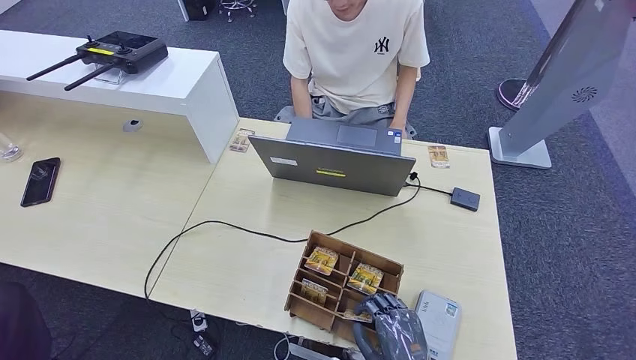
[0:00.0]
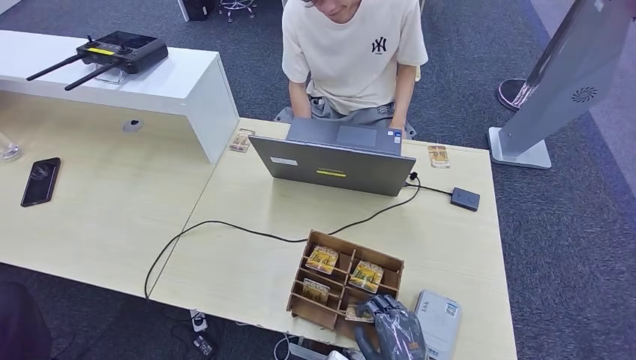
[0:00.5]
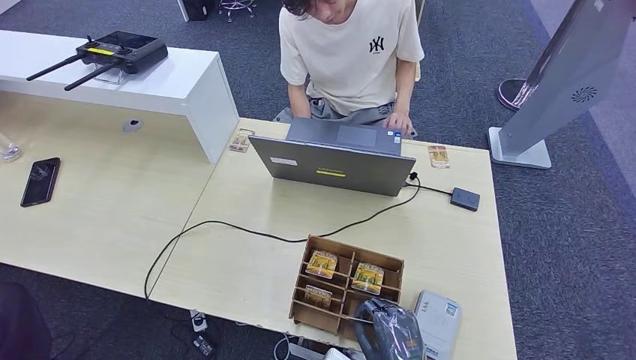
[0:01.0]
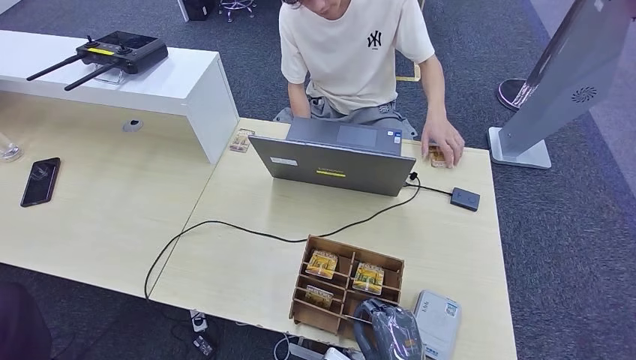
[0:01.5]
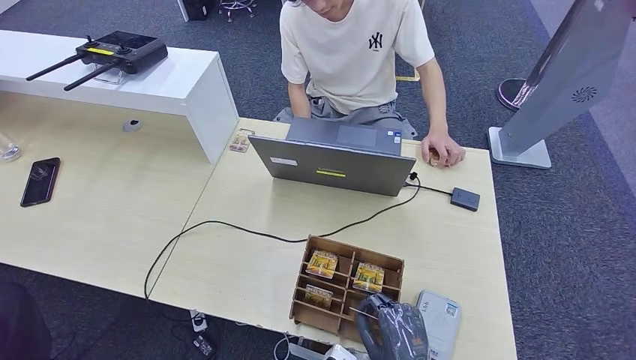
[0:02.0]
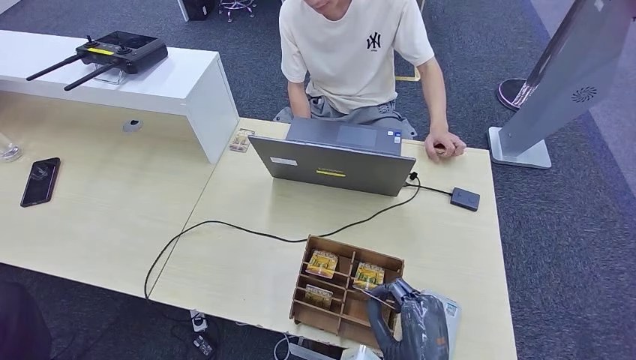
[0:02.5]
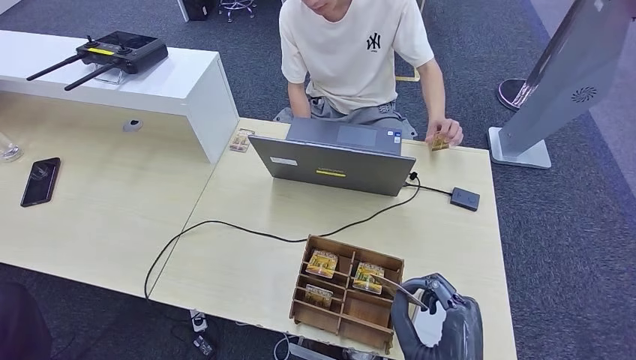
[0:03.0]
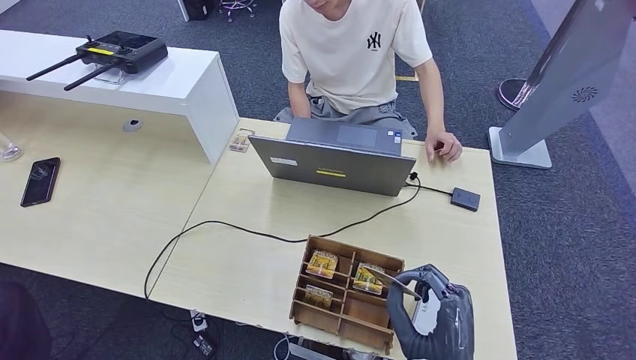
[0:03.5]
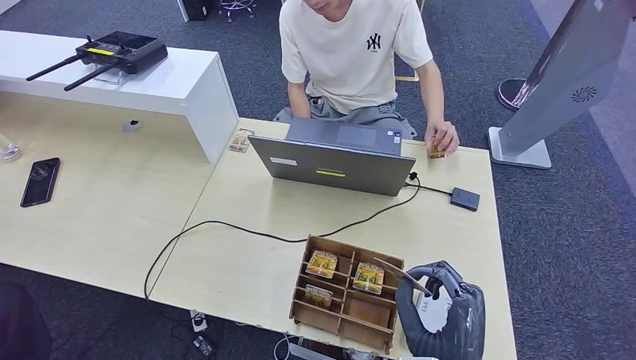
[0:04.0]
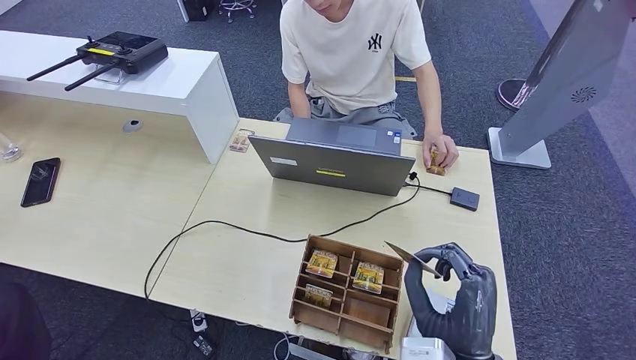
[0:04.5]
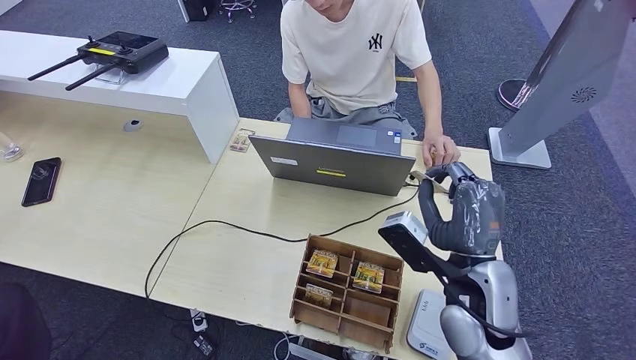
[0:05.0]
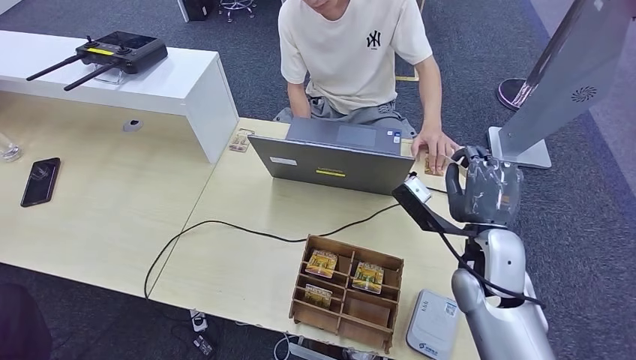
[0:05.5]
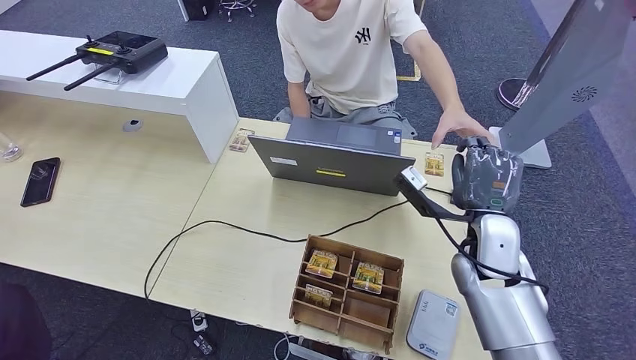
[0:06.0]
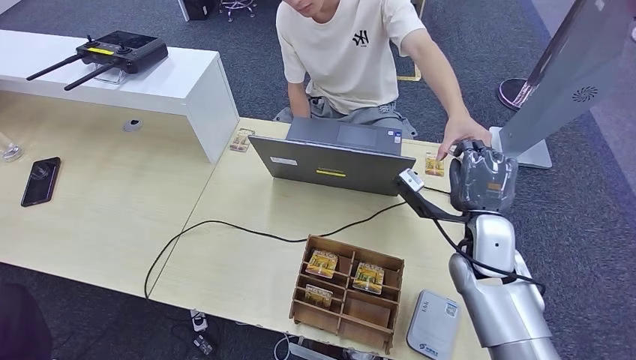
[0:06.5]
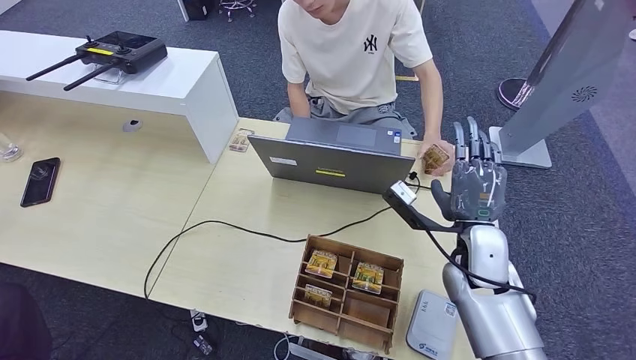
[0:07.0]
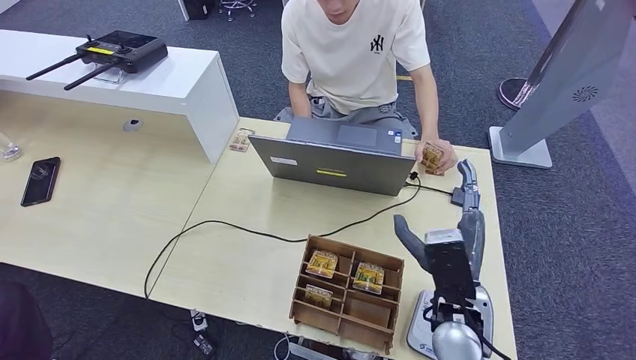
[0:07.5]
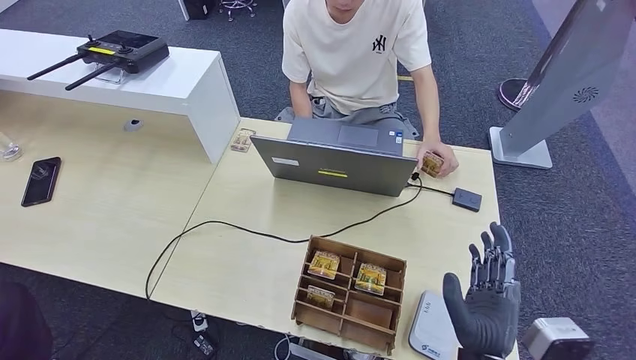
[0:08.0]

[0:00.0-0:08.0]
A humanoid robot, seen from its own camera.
Step, 0:00.0 to 0:03.5: Pick up the room key from the key card box.
Step, 0:04.0 to 0:08.0: Hand the room key to the person.
0:00.0 to 0:02.0: The hands make only small movements.
0:02.0 to 0:04.0: The right hand moves upward, about 10 cm.
0:04.0 to 0:06.0: The right hand moves forward, roughly 20 cm, while the left hand is displaced forward by approximately 10 cm.
0:06.0 to 0:08.0: The left hand heads to the right and backward, covering roughly 10 cm; the right hand heads backward, covering some 20 cm.
